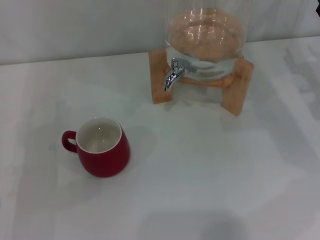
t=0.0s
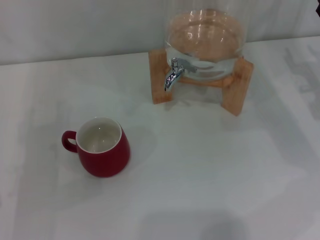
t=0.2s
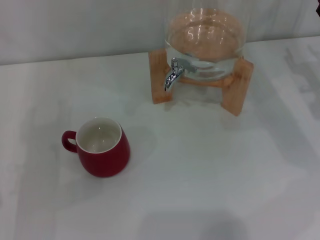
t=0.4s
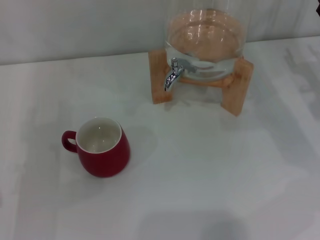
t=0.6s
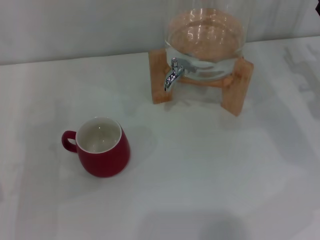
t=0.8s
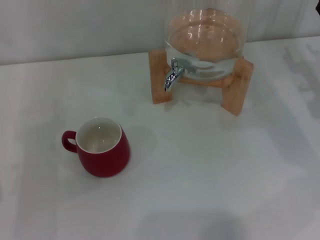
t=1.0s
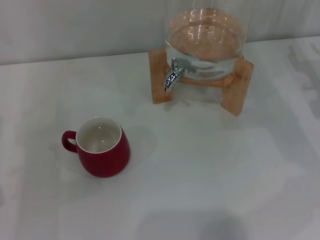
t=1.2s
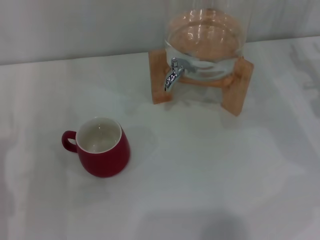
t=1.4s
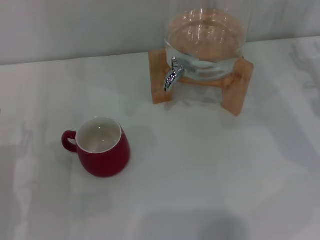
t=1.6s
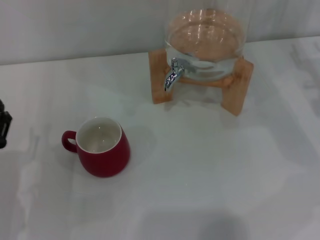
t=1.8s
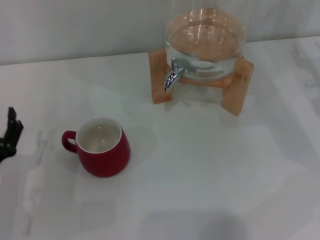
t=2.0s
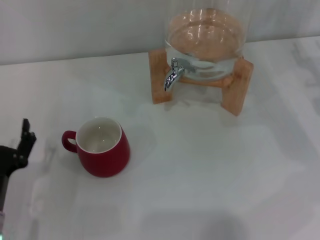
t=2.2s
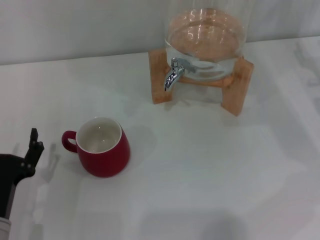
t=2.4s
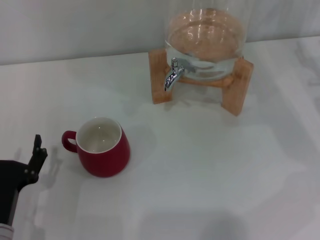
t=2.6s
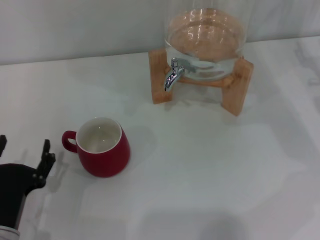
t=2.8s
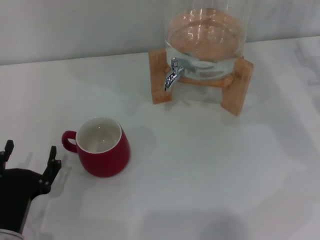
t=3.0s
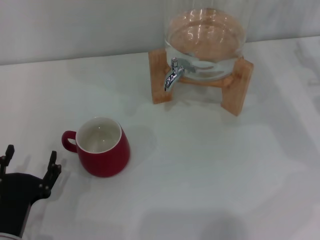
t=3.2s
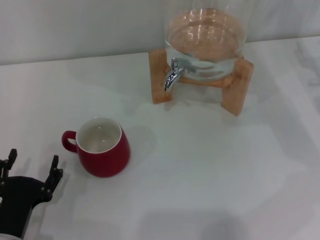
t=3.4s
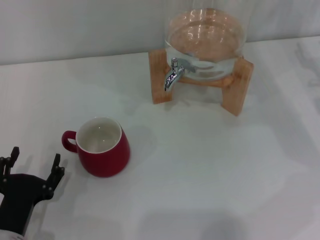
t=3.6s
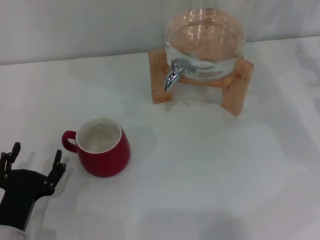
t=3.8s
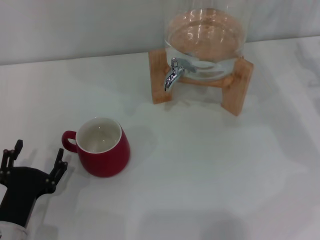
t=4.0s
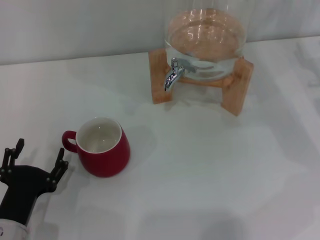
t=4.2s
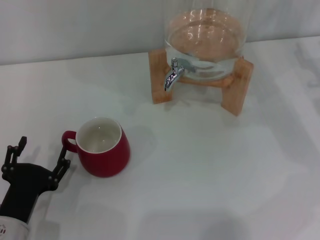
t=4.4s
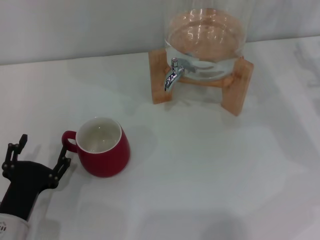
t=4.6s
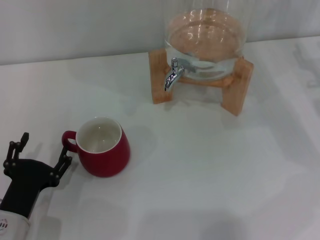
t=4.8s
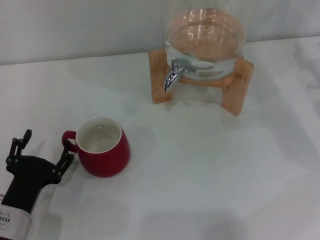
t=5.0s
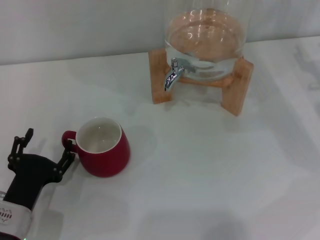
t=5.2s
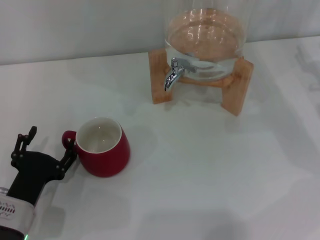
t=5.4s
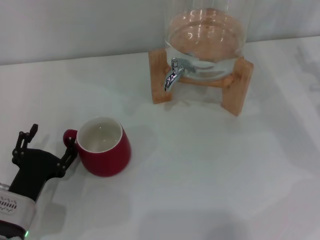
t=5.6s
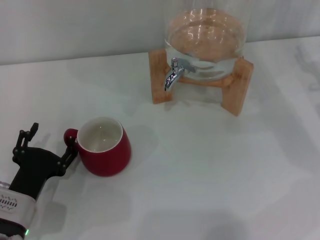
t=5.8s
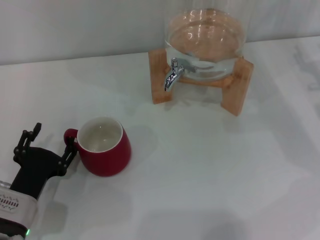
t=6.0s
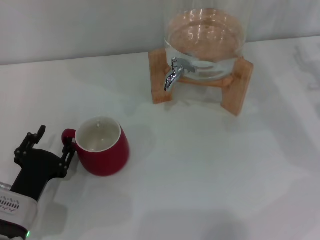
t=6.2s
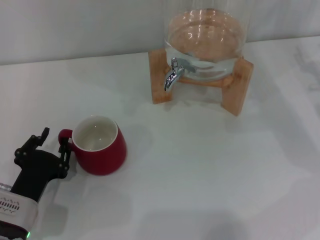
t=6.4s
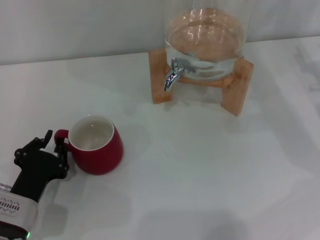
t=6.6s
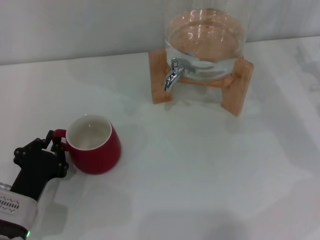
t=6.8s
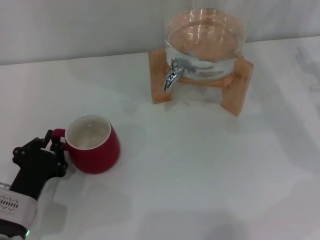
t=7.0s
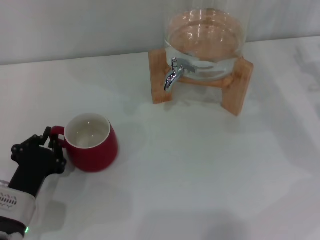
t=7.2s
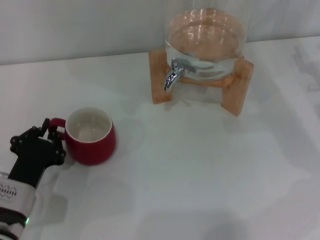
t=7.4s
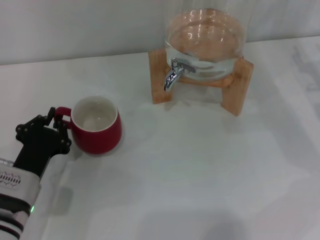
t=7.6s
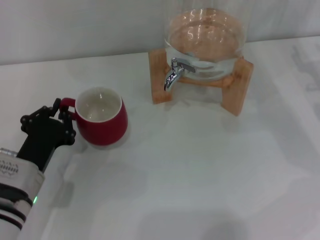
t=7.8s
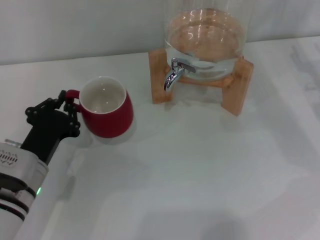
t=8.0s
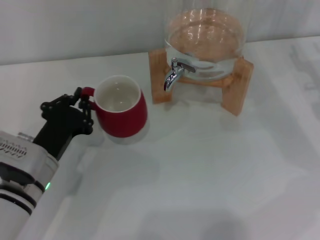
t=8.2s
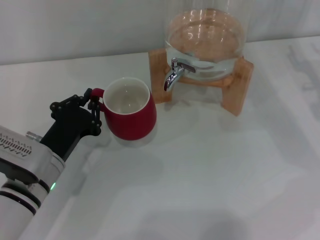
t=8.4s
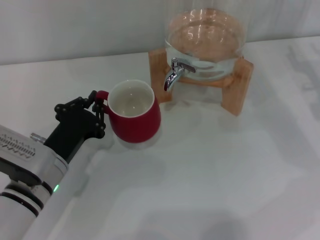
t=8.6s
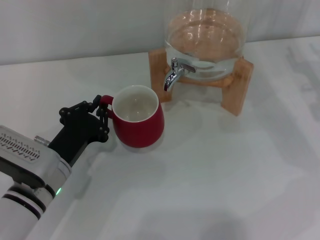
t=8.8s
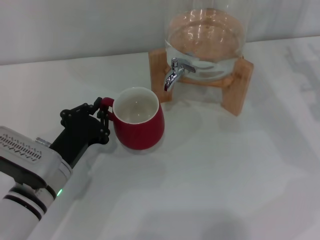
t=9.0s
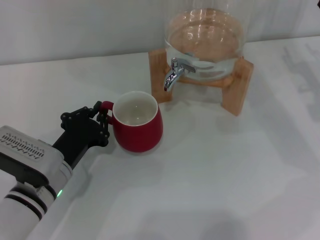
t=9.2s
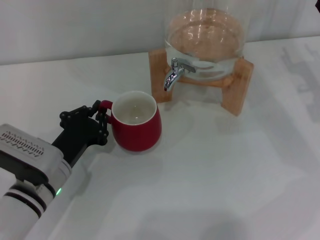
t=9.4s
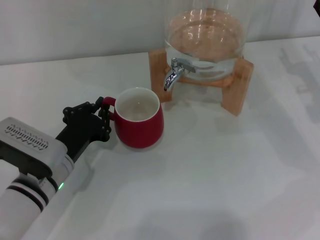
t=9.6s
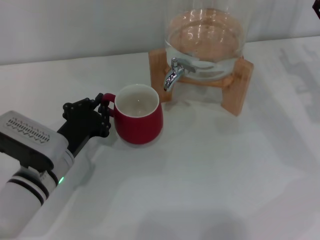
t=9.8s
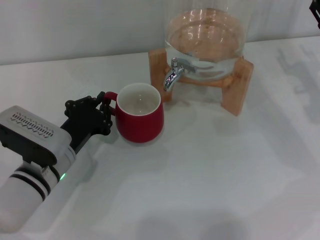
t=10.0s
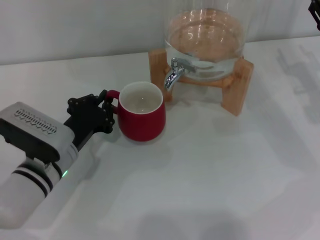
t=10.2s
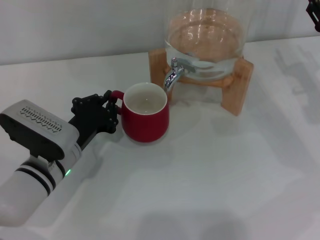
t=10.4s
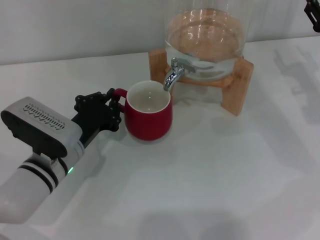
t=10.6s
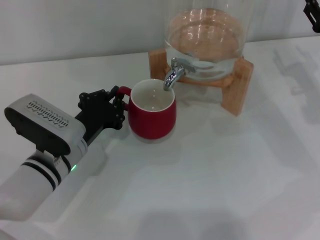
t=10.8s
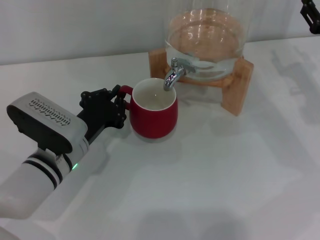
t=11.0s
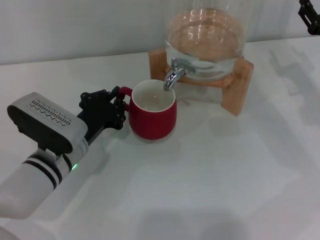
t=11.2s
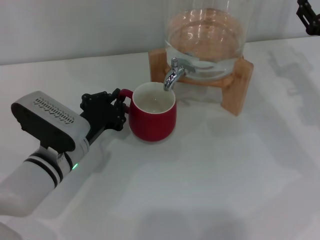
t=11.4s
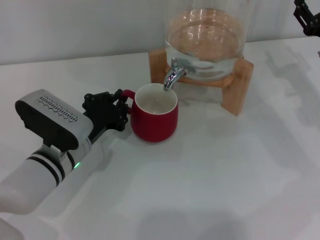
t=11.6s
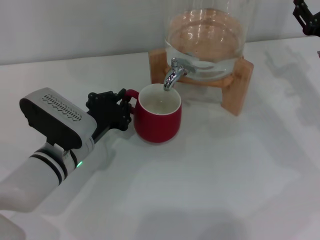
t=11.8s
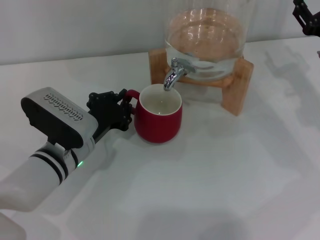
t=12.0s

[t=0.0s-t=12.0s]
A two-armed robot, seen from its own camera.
Task of the whole recording: the left gripper pick up the red cup and place it horizontally under the faucet, the right gripper turn on the faucet to fill the cup, and then turn off the faucet.
t=0.0s to t=1.6s: The left gripper moves approximately 5 cm.
t=1.6s to t=3.0s: The left gripper goes some 5 cm backward.
t=3.0s to t=6.0s: The grippers make only small movements.
t=6.0s to t=7.6s: The left gripper closes up.
t=7.6s to t=9.0s: The grippers make only small movements.
t=9.0s to t=12.0s: There are only small adjustments of the grippers.

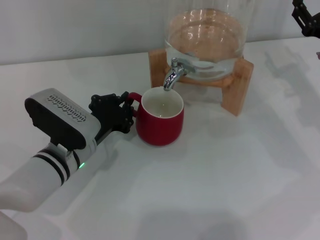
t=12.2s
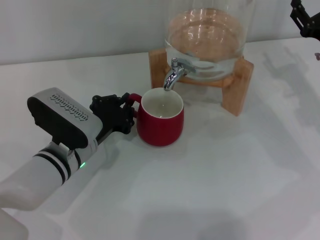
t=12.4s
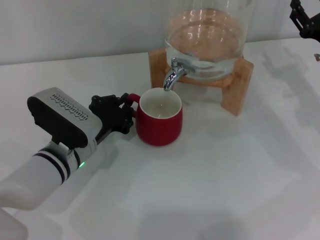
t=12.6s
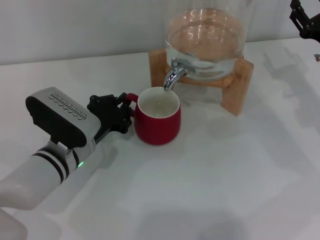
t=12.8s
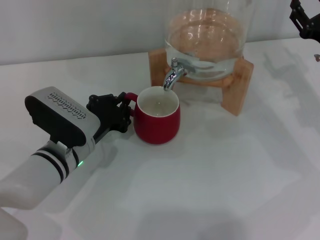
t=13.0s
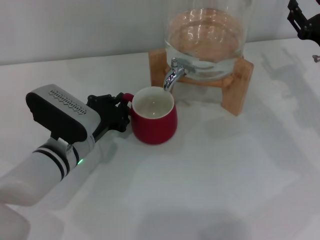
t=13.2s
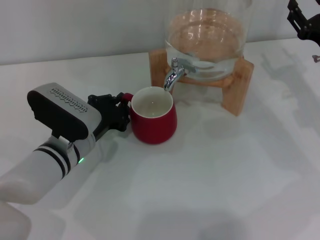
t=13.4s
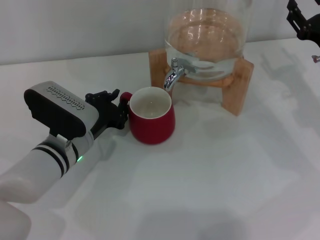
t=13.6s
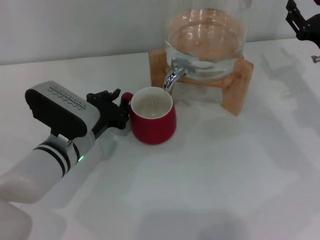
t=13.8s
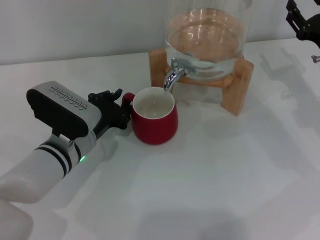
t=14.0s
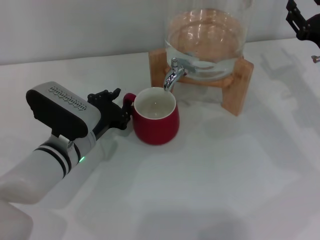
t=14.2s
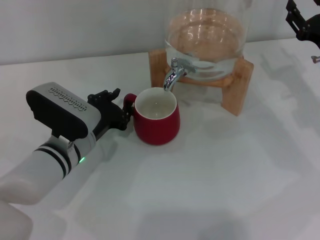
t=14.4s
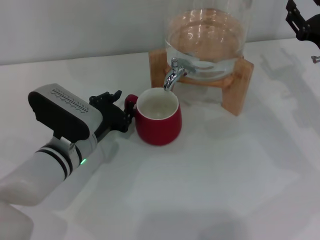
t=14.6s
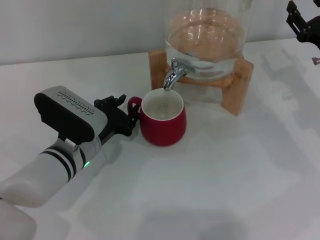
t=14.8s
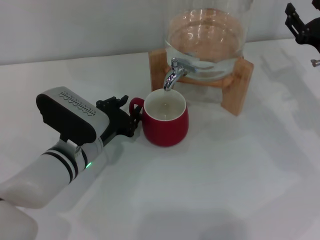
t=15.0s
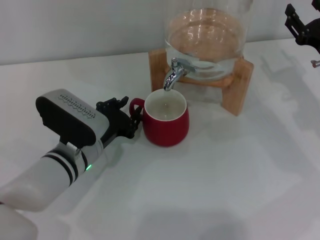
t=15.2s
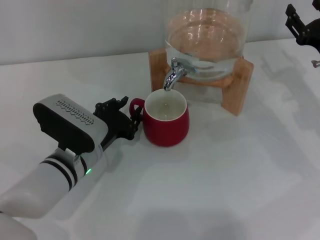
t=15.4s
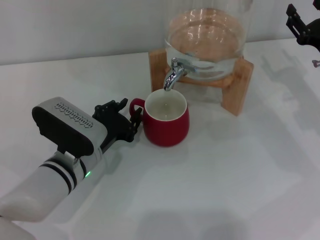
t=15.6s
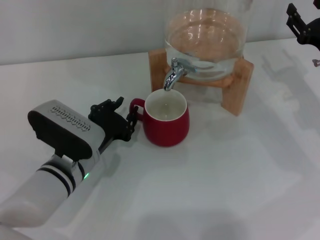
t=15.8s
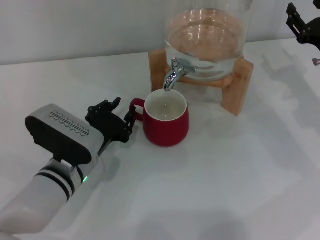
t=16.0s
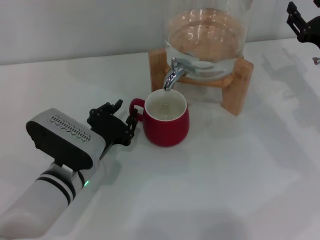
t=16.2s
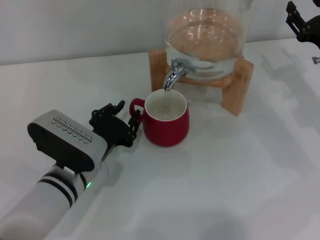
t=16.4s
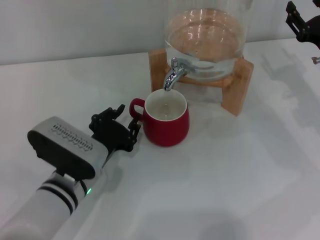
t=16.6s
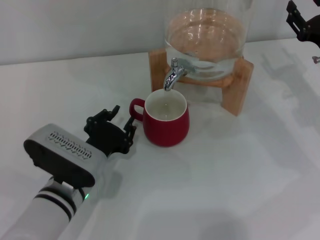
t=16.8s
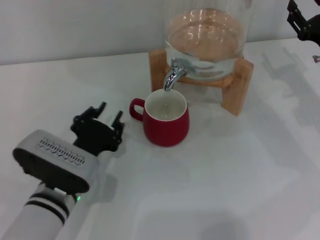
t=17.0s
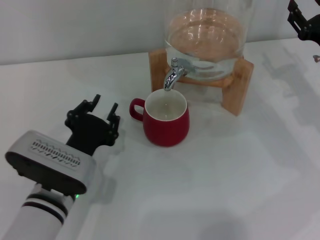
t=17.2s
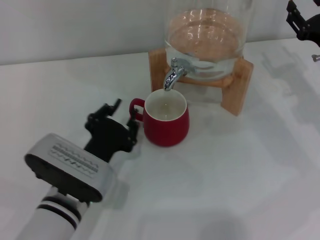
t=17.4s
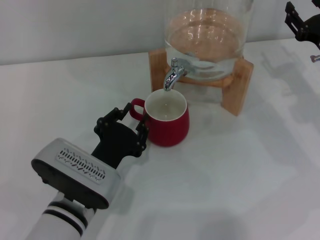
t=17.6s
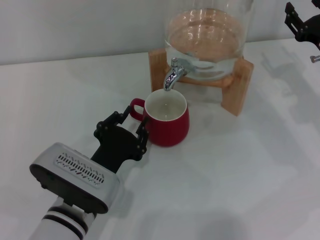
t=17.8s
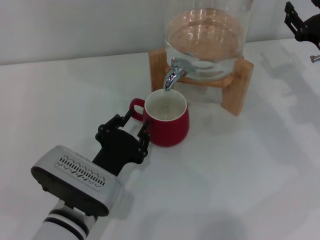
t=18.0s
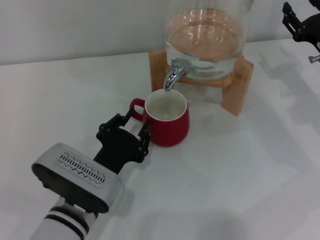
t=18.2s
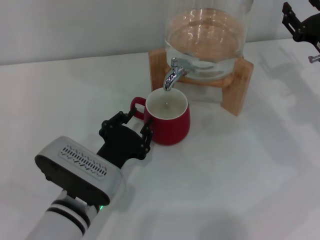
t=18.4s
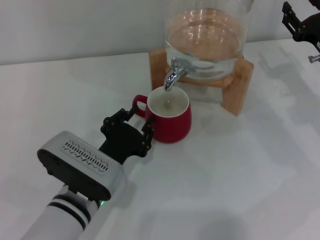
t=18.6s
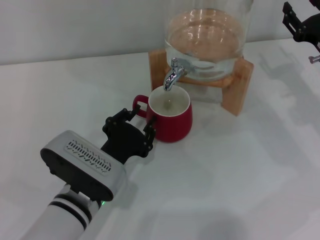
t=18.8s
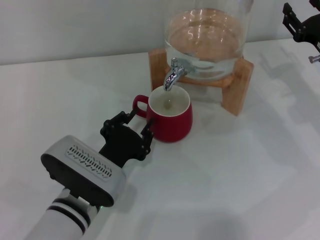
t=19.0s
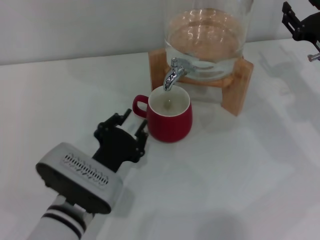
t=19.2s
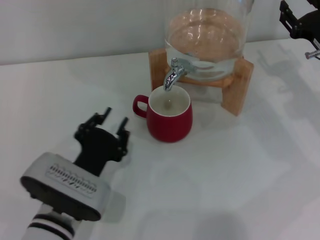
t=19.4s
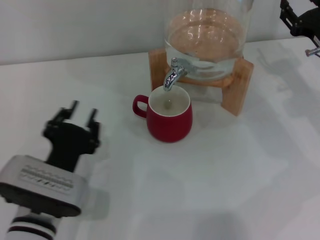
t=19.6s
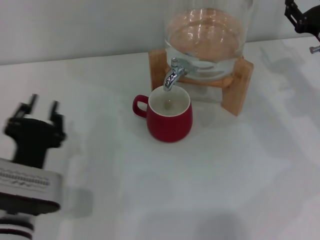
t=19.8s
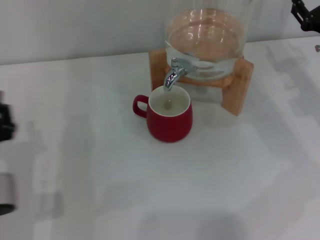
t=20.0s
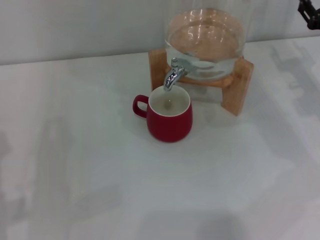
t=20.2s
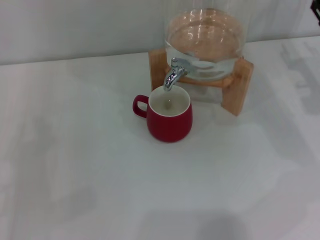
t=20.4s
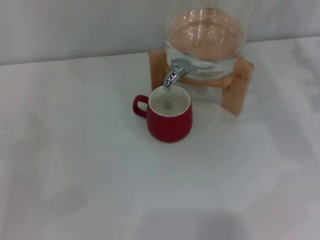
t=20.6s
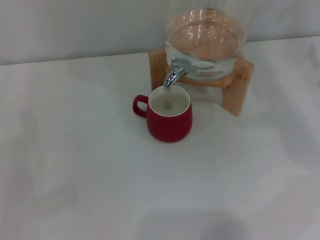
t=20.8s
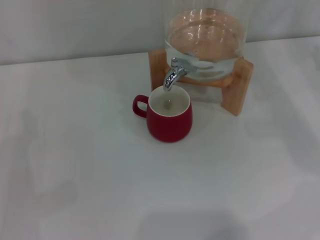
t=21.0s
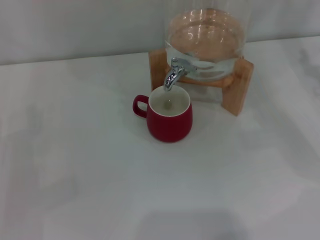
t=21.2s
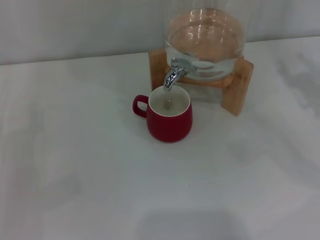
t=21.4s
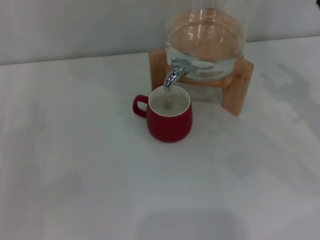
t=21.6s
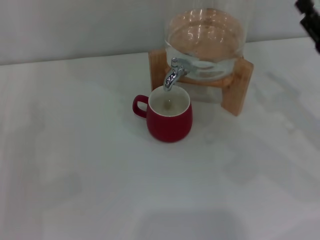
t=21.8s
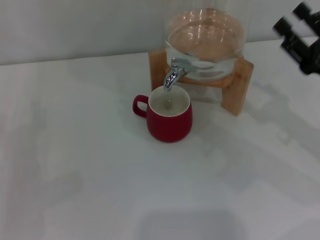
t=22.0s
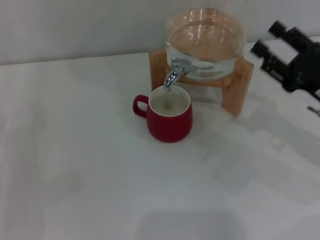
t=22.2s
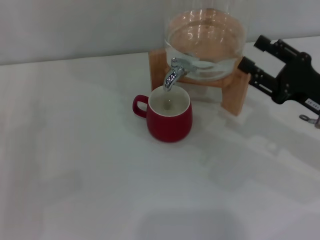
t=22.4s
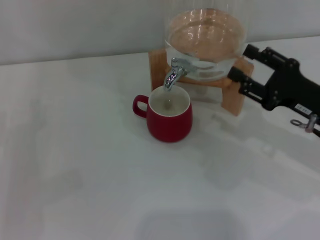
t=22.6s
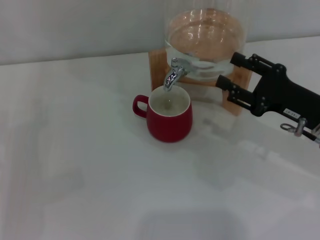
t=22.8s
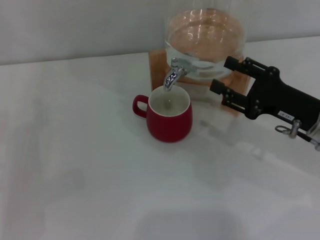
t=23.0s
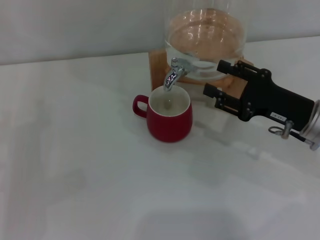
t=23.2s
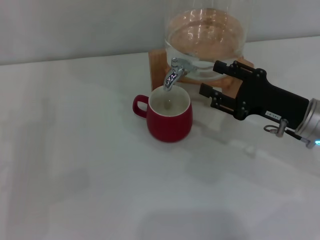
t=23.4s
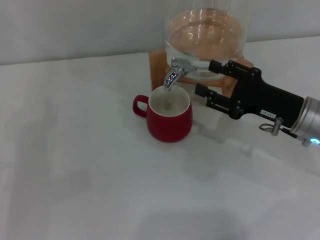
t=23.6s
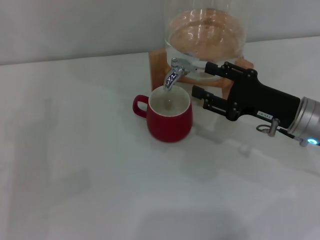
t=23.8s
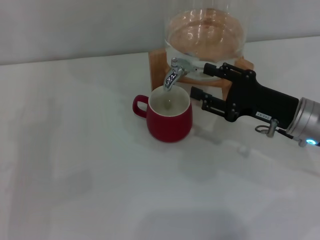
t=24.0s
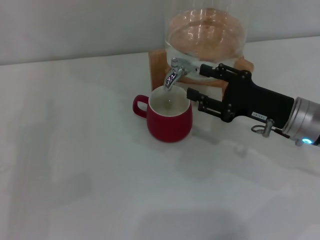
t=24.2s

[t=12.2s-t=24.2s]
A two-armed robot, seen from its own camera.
Task of the whole recording: the left gripper pick up the red cup and place it horizontally under the faucet, the right gripper turn on the faucet to fill the cup, and then turn off the faucet.
Step, t=12.2s to t=19.0s: Move the cup beneath the water dispenser nozzle with the left gripper.
t=12.2s to t=16.6s: The grippers make only small movements.
t=16.6s to t=18.2s: The grippers stay close to where they were, moving slightly.
t=18.2s to t=19.8s: The left gripper shifts some 5 cm to the left.
t=19.8s to t=21.2s: The right gripper heads backward, covering approximately 5 cm. Meanwhile the left gripper is displaced to the left by roughly 15 cm, and opens.
t=21.2s to t=22.6s: The right gripper moves to the left, roughly 10 cm.
t=22.6s to t=24.2s: The right gripper changes place by roughly 5 cm.
